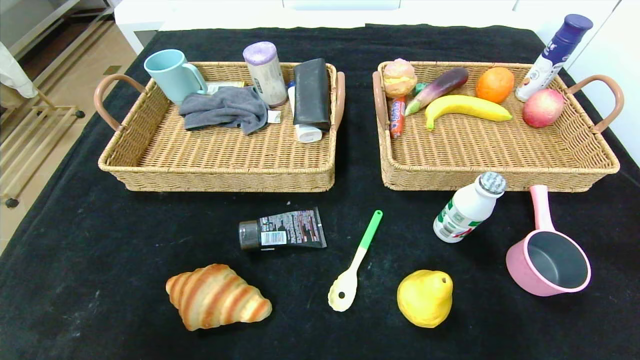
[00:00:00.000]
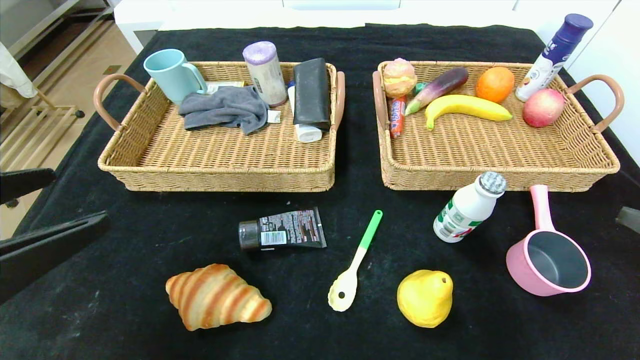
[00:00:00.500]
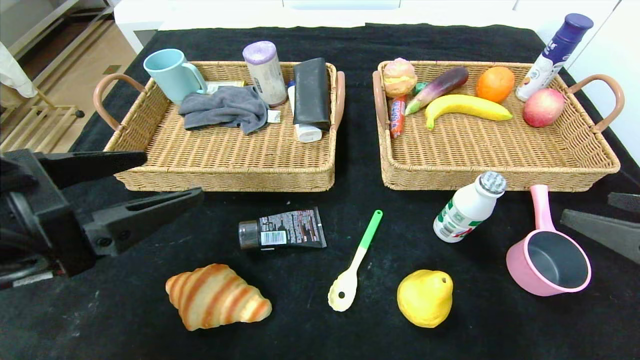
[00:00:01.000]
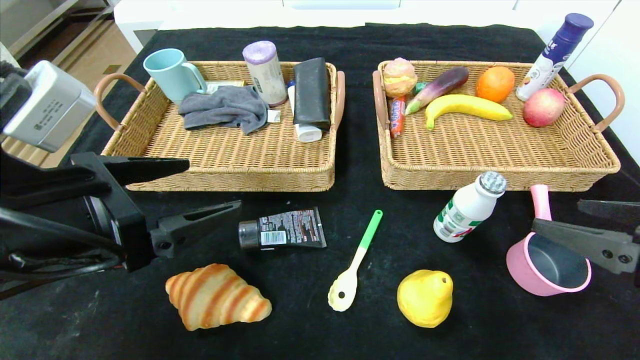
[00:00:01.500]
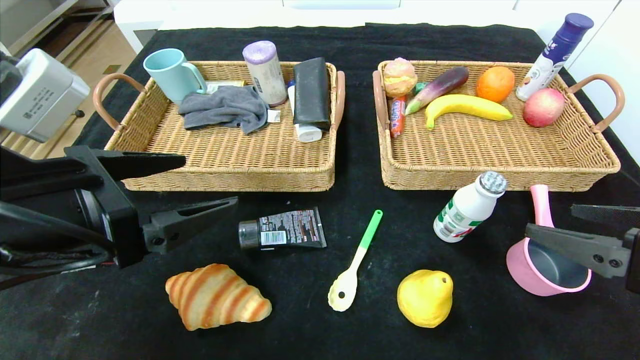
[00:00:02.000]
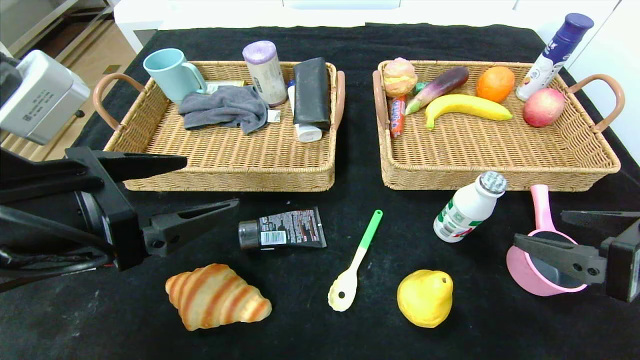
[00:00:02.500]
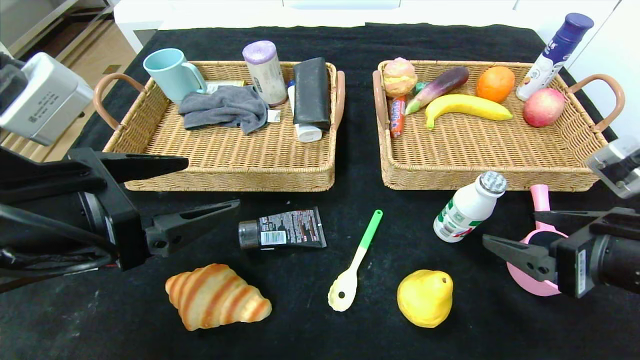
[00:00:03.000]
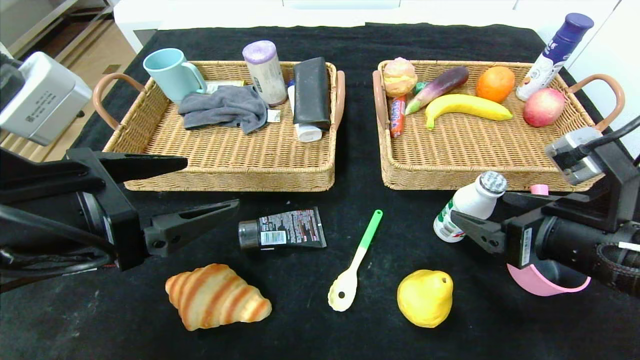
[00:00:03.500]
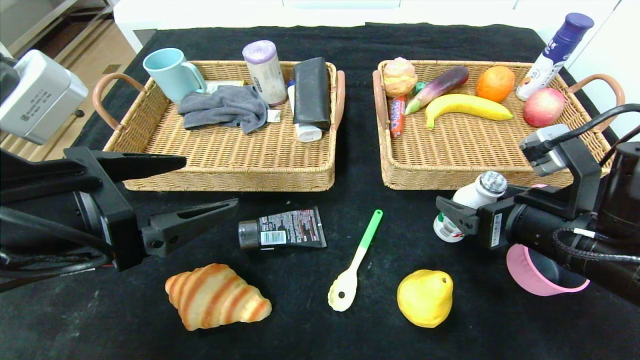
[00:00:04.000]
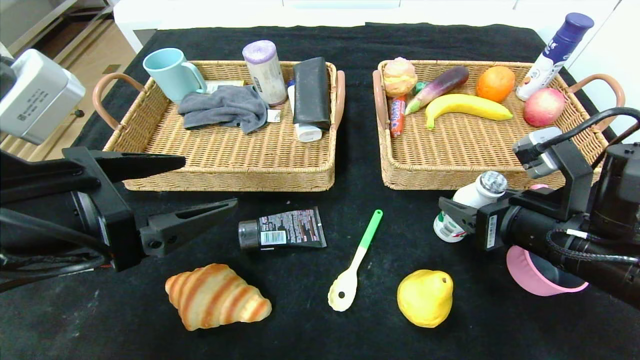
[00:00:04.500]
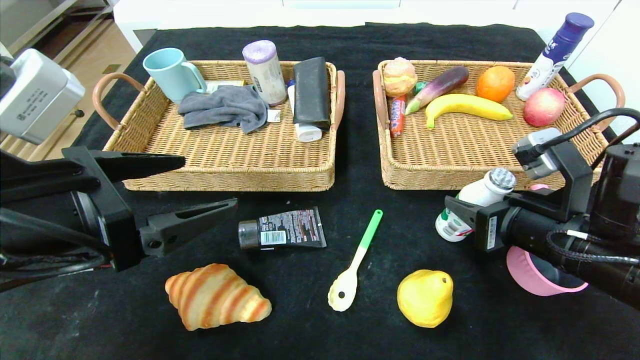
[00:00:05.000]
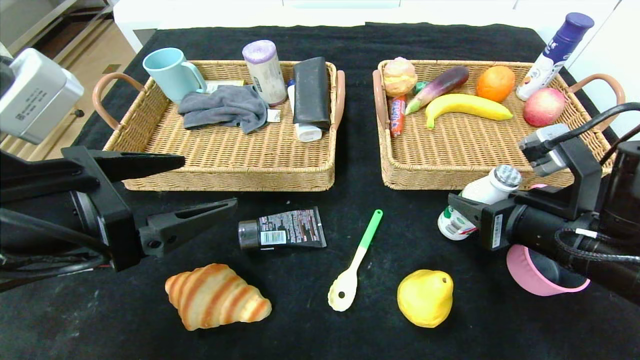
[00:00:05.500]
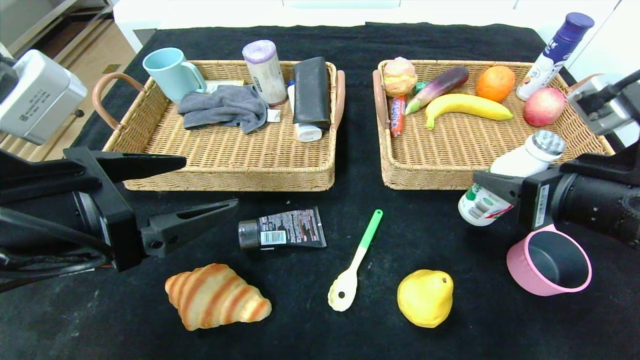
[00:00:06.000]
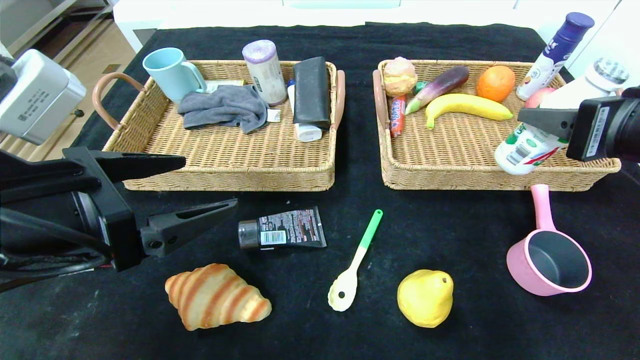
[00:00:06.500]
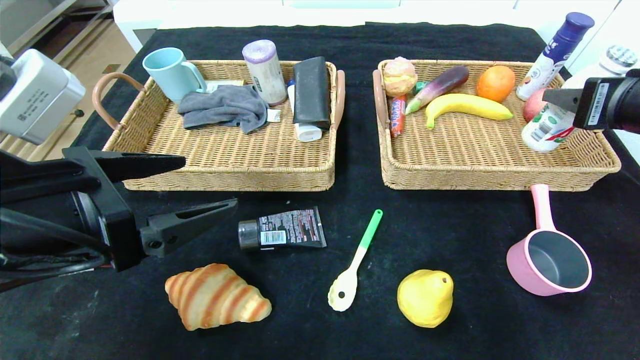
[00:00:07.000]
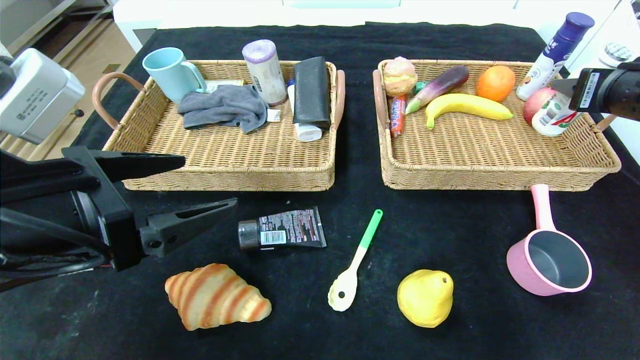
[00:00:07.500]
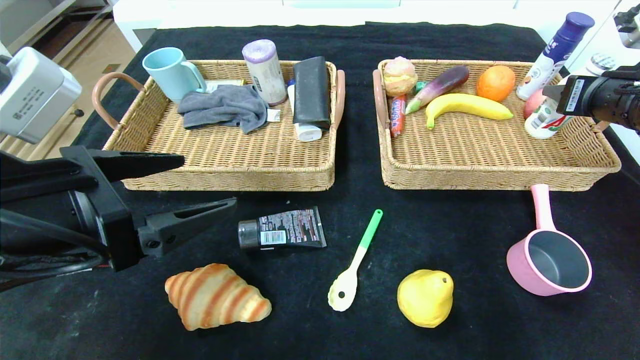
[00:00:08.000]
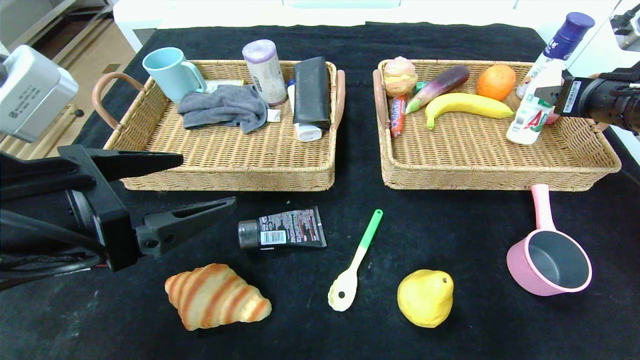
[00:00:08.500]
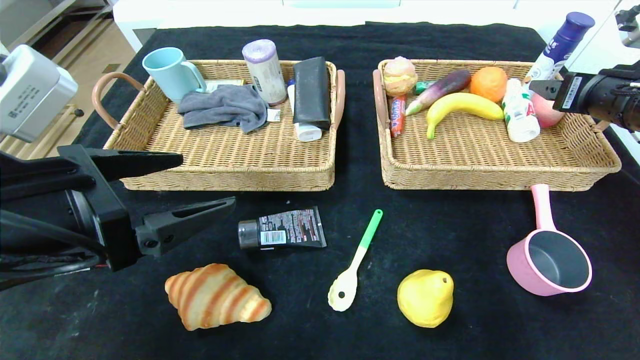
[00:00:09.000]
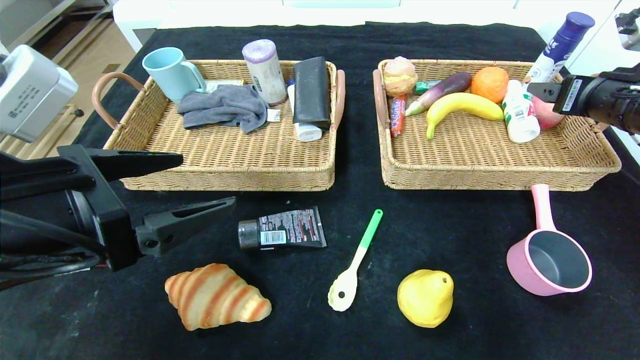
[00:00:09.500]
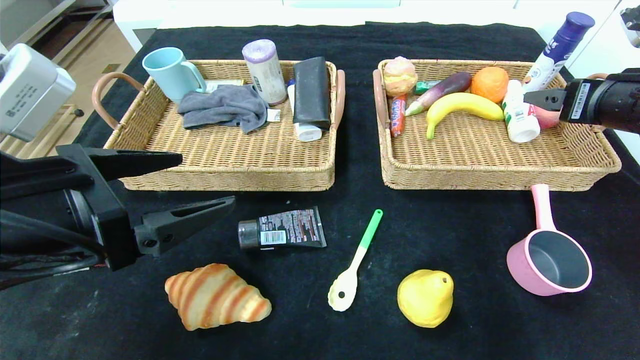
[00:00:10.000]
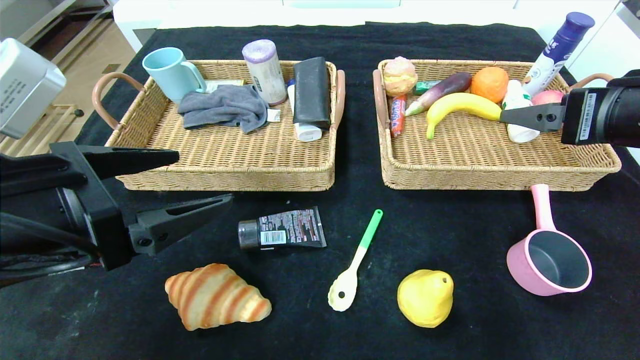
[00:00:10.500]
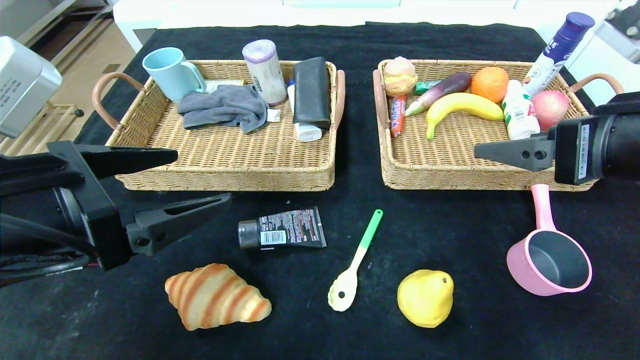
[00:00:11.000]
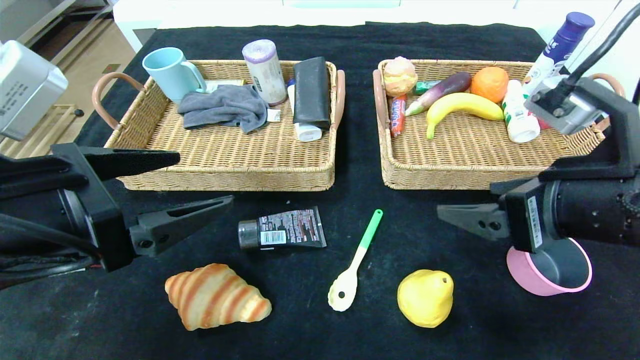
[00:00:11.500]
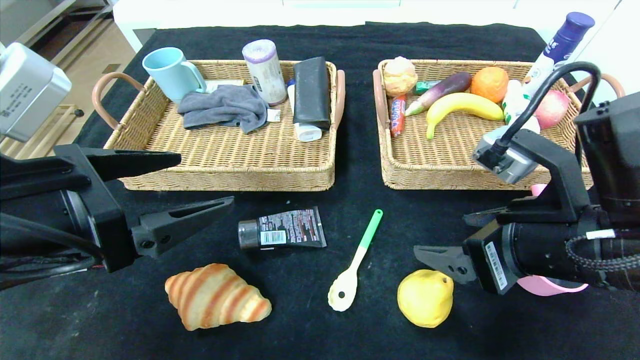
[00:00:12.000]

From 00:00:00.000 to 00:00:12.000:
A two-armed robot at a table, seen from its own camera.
Step, from 00:00:00.000 to 00:00:09.500: Grasp the ad milk and put it in the right basket.
From 00:00:00.000 to 00:00:02.000: The right gripper heads forward and to the left, covering about 10 cm, while the left gripper shifts about 15 cm forward and to the right.
From 00:00:02.000 to 00:00:04.000: The right gripper goes approximately 10 cm forward and to the left.
From 00:00:04.000 to 00:00:06.000: The right gripper moves upward, some 5 cm, and closes up.
From 00:00:06.000 to 00:00:08.000: The right gripper moves forward, to the right and upward, some 20 cm.
From 00:00:08.000 to 00:00:10.000: The right gripper opens its fingers.
From 00:00:10.000 to 00:00:12.000: The right gripper goes roughly 20 cm to the left, backward and downward.

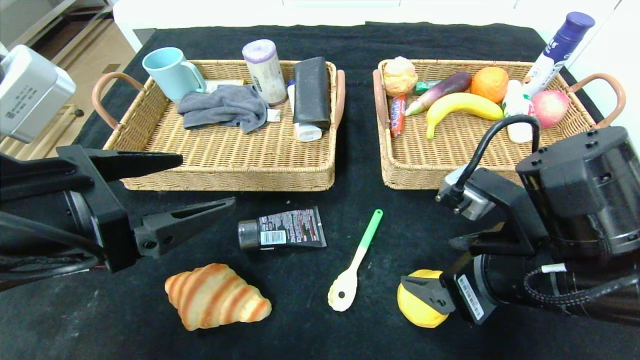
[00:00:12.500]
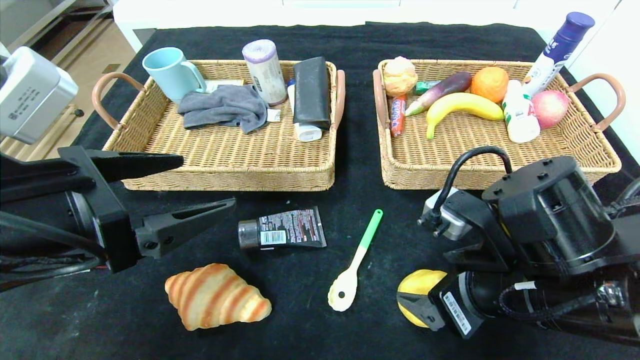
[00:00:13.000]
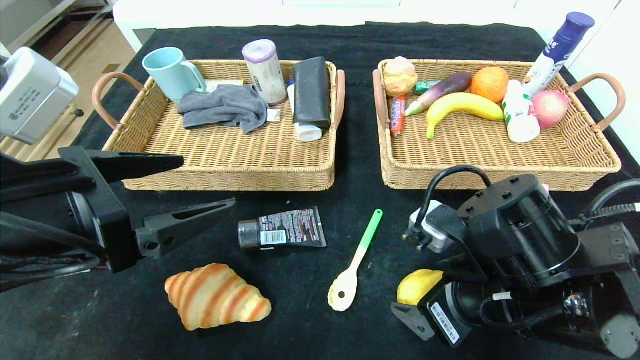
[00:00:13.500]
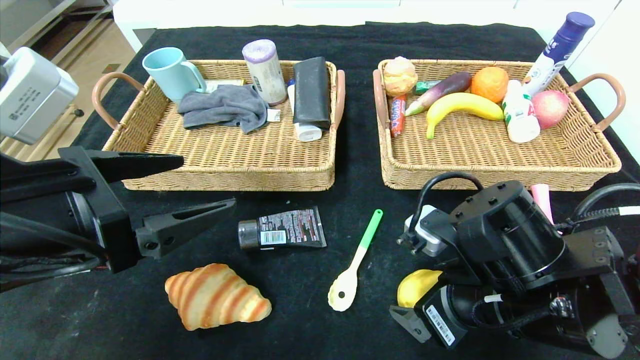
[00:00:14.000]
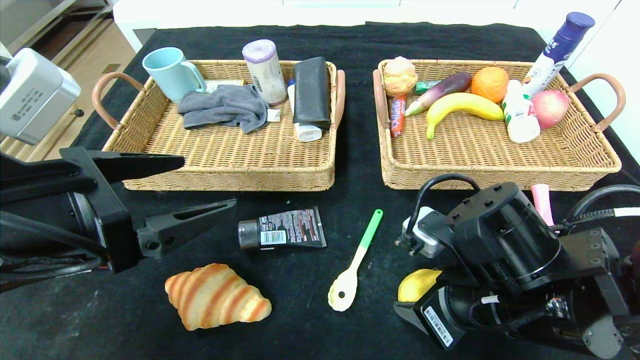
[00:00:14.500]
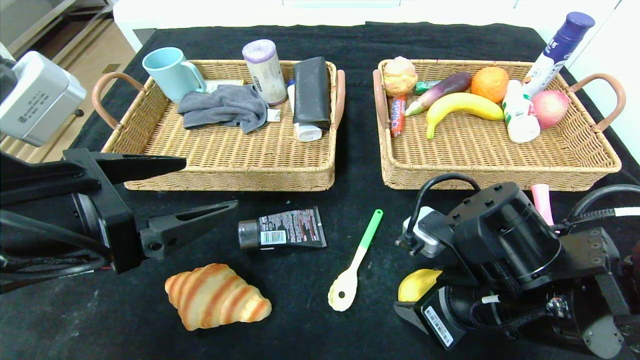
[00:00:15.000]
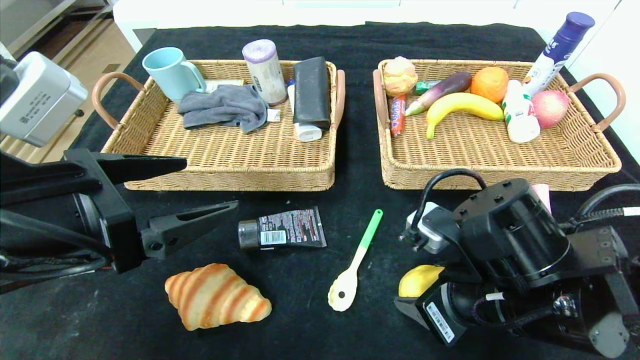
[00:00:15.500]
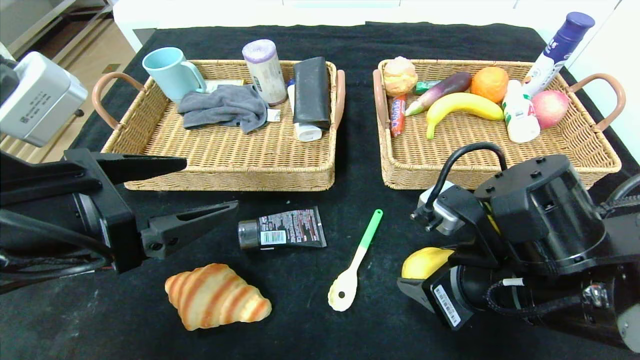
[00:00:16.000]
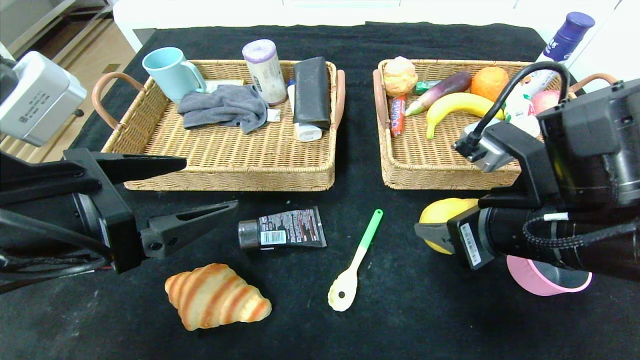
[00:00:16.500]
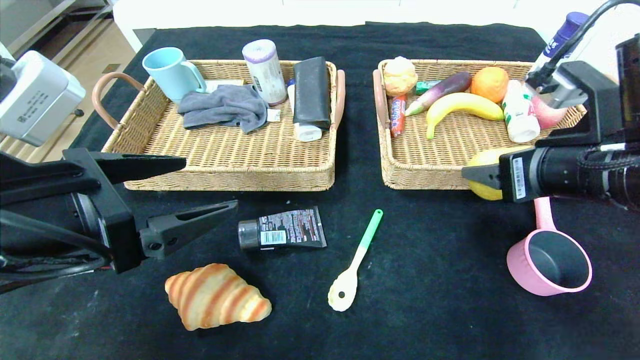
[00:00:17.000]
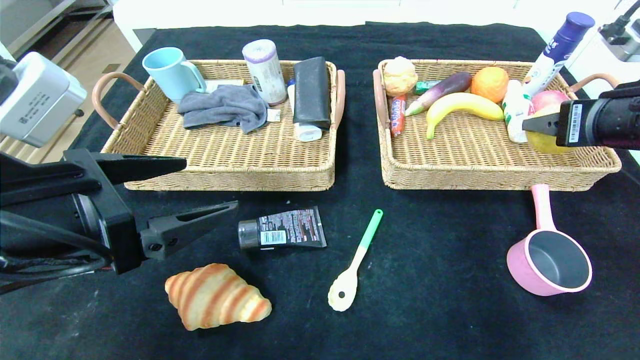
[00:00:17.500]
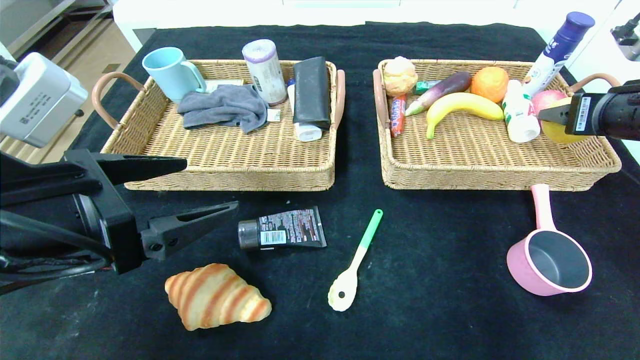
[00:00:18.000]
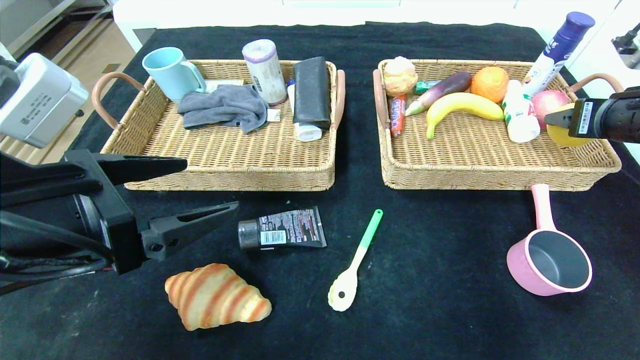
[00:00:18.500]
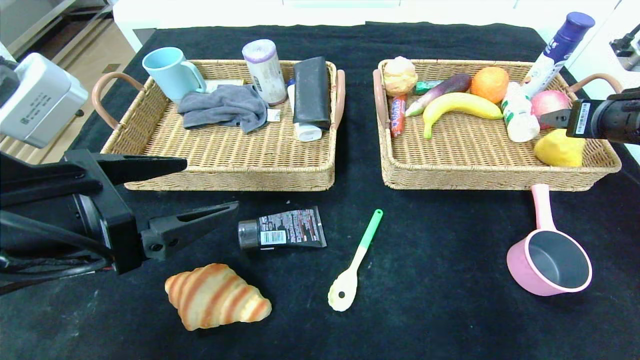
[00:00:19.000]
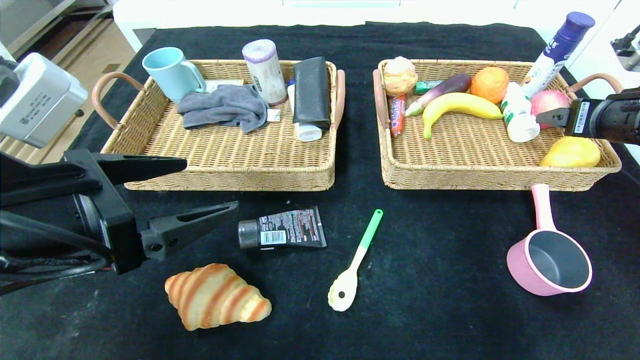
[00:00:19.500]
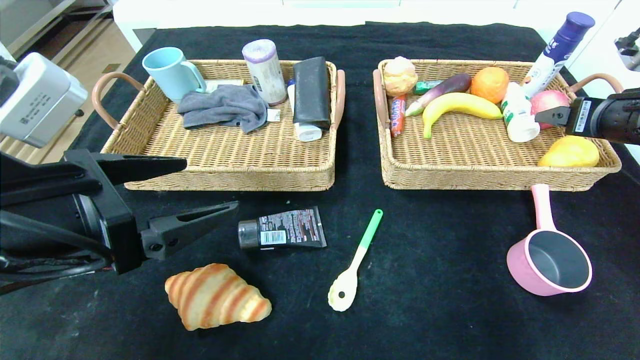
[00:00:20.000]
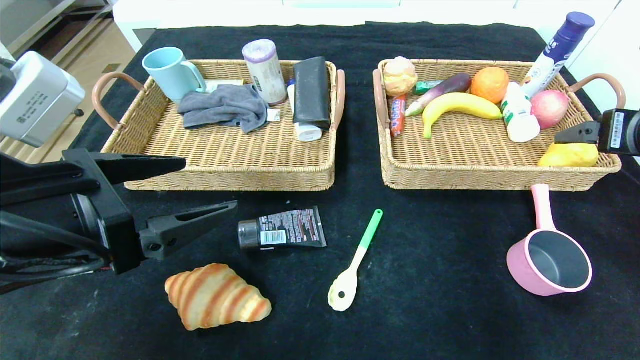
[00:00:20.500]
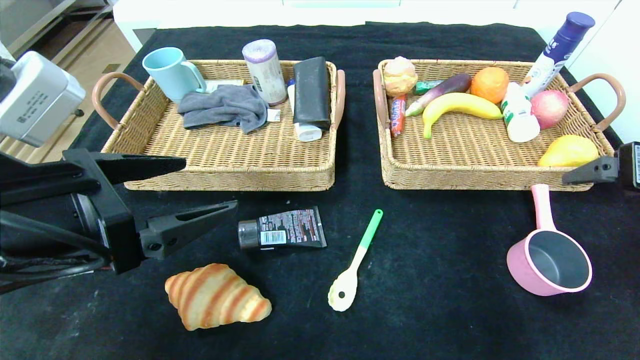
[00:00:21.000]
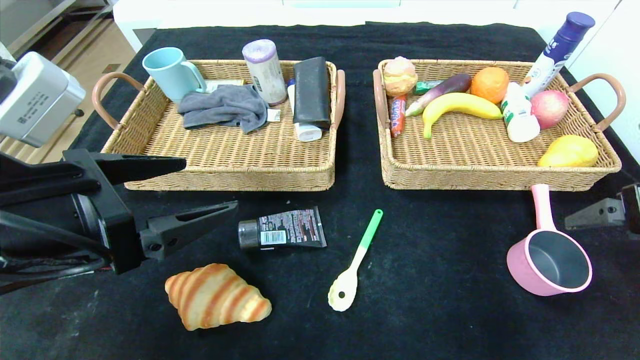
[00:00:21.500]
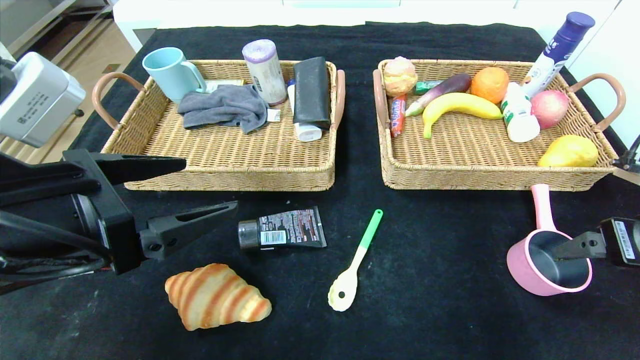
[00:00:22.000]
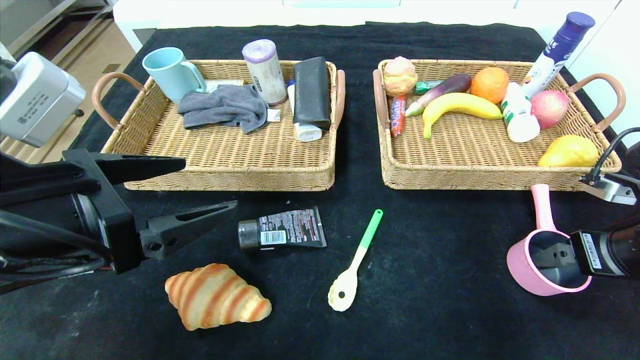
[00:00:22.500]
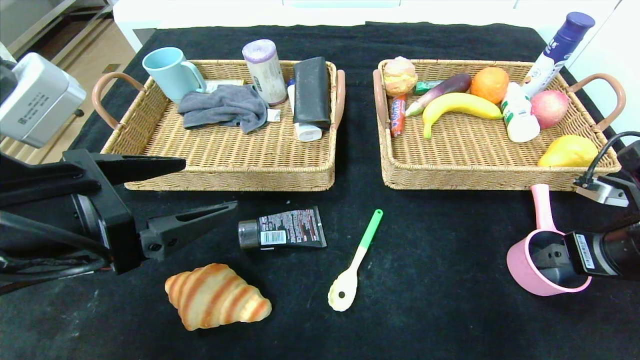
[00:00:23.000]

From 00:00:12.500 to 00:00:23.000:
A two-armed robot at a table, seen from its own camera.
Step, from 00:00:12.500 to 00:00:19.500: Grasp the pear and put it in the right basket.
From 00:00:12.500 to 00:00:14.500: The grippers move only a little.
From 00:00:14.500 to 00:00:16.500: The right gripper is displaced upward by about 5 cm.
From 00:00:16.500 to 00:00:19.000: The right gripper shifts about 20 cm to the right and forward.
From 00:00:19.000 to 00:00:21.000: The right gripper travels backward by some 10 cm.
From 00:00:21.000 to 00:00:23.000: The right gripper moves downward, approximately 10 cm.
